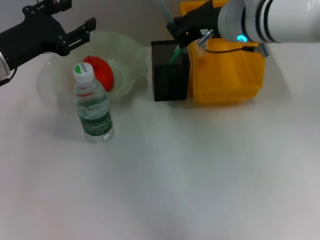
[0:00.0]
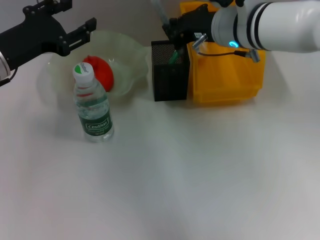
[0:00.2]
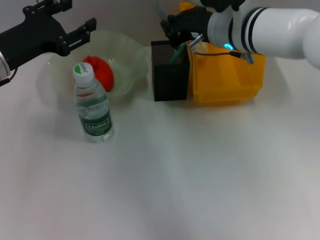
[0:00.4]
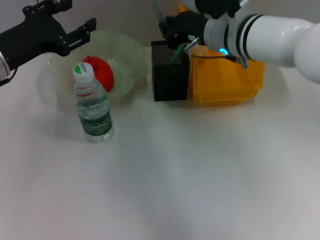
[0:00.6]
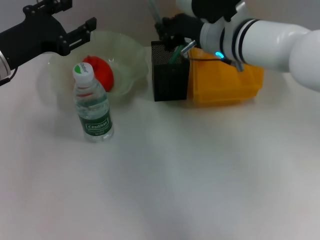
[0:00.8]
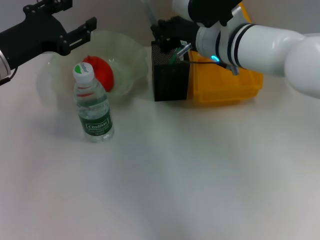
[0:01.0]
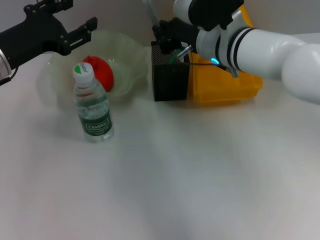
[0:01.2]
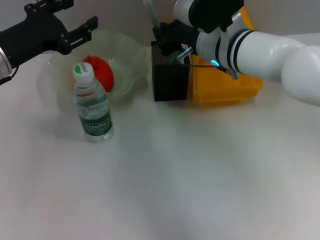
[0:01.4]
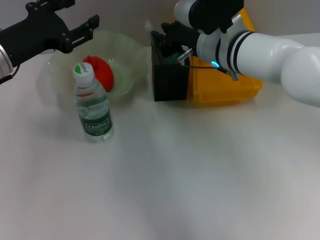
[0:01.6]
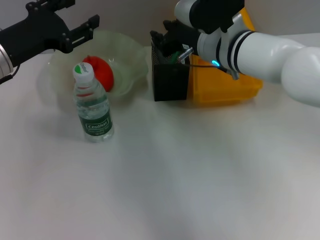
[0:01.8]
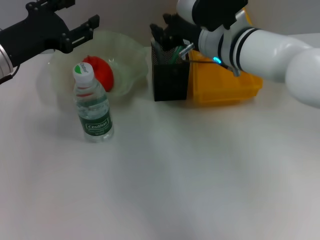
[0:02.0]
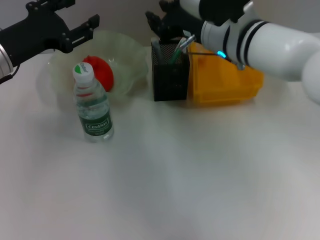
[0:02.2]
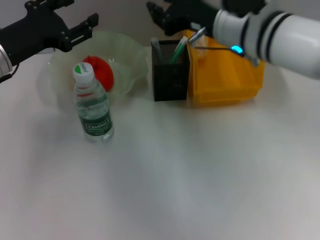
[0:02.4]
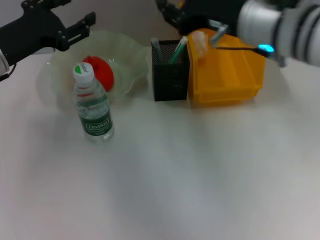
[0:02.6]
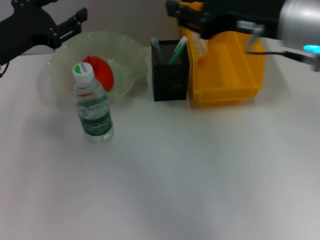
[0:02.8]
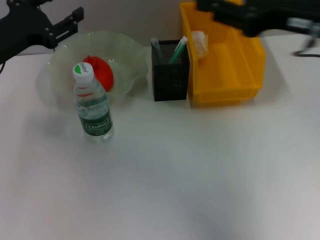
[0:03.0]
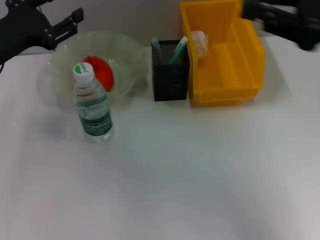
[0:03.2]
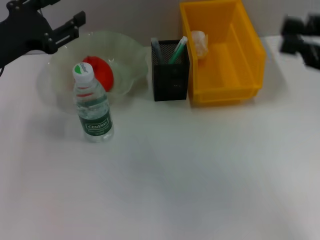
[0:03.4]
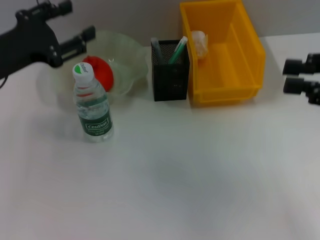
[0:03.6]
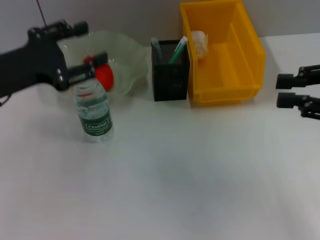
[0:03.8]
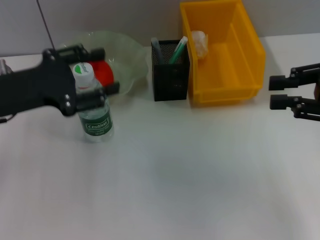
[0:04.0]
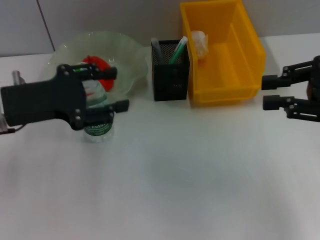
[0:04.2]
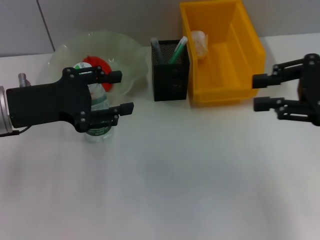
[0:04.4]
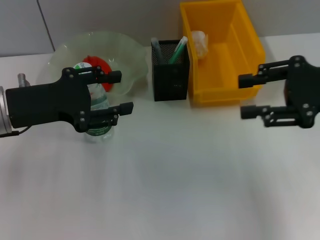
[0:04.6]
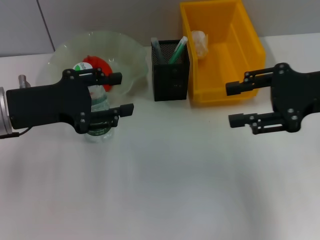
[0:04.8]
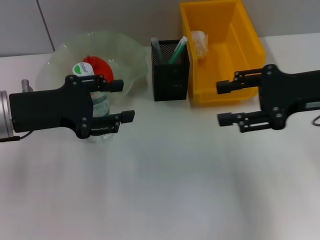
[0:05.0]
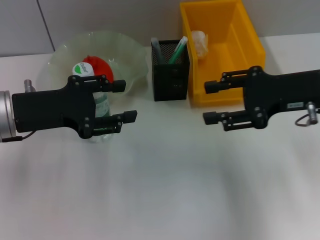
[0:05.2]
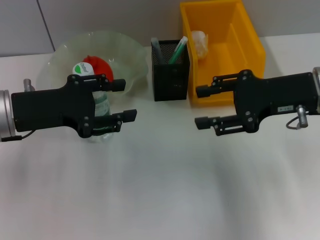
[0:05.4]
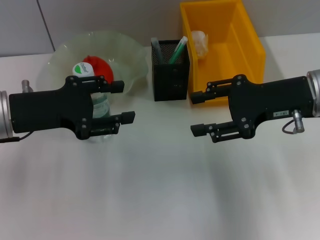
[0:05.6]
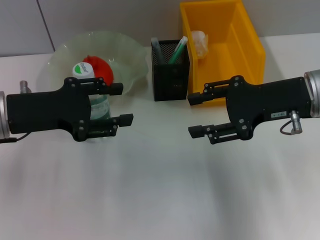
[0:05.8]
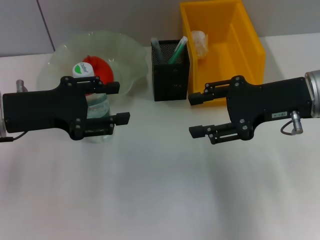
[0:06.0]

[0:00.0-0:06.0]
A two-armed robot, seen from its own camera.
Step, 0:00.0 to 0:02.4: Place the gray glue into the pen holder with the right hand.
0:00.0 to 0:01.6: The right gripper moves downward, roughly 5 cm.
0:01.6 to 0:03.0: The right gripper moves to the right, backward and upward, some 20 cm.
0:03.0 to 0:04.4: The left gripper ends up some 5 cm from where it was; the right gripper heads to the right and downward, covering some 10 cm.
0:04.4 to 0:06.0: The right gripper shifts roughly 5 cm to the left, and opens up.

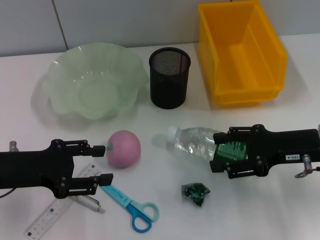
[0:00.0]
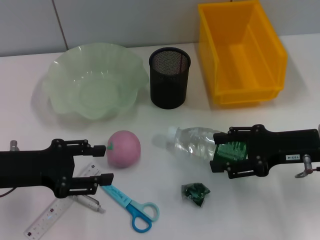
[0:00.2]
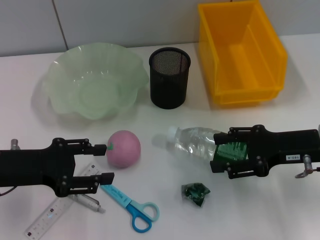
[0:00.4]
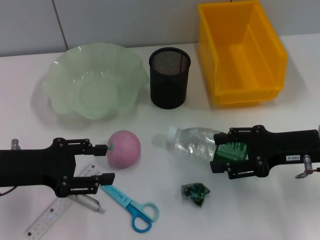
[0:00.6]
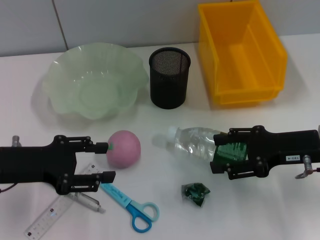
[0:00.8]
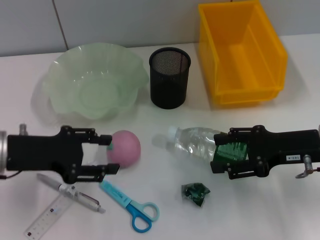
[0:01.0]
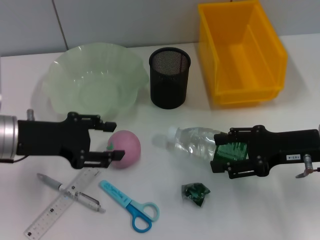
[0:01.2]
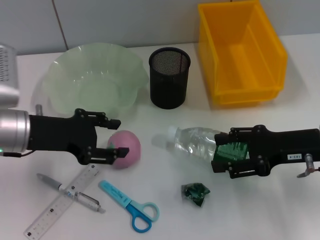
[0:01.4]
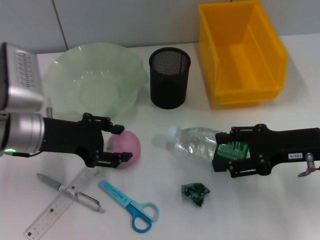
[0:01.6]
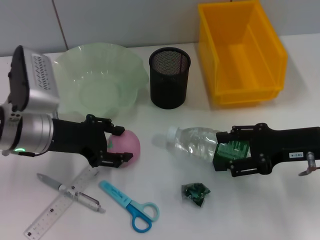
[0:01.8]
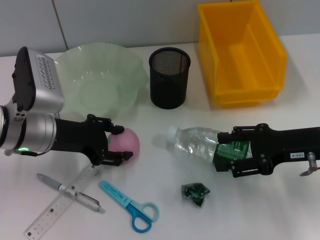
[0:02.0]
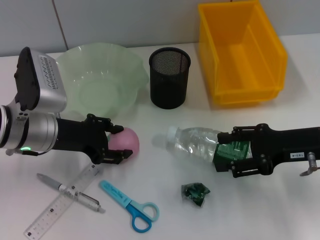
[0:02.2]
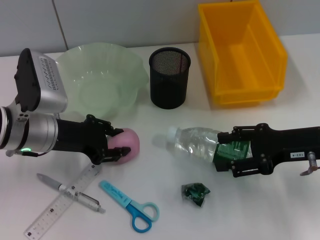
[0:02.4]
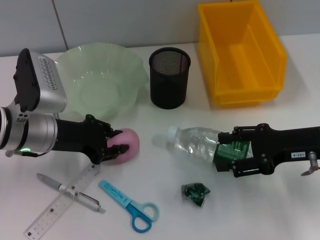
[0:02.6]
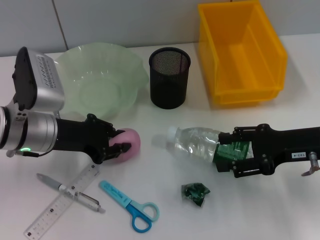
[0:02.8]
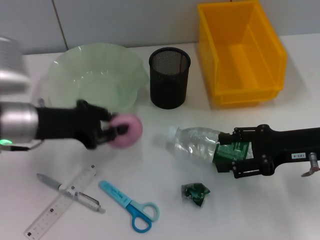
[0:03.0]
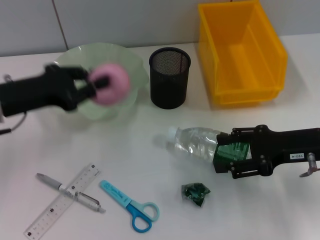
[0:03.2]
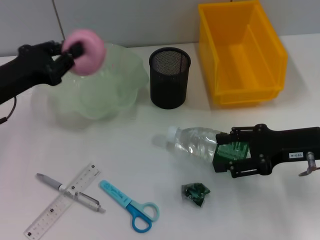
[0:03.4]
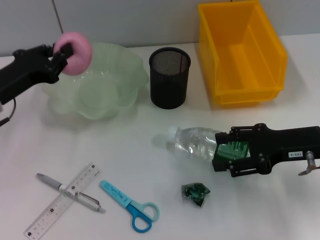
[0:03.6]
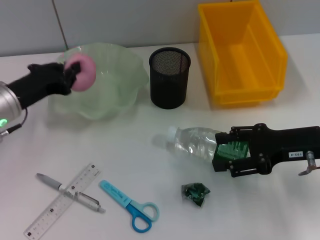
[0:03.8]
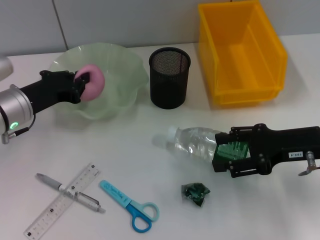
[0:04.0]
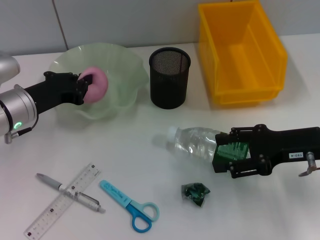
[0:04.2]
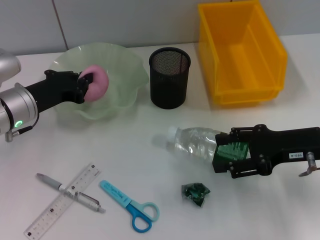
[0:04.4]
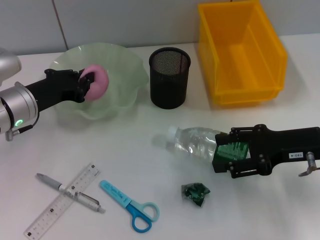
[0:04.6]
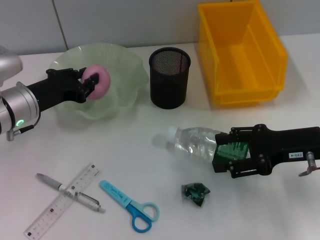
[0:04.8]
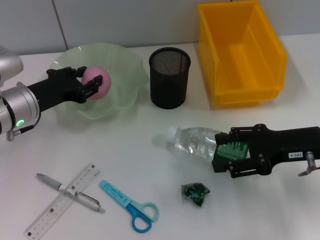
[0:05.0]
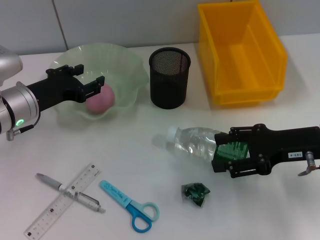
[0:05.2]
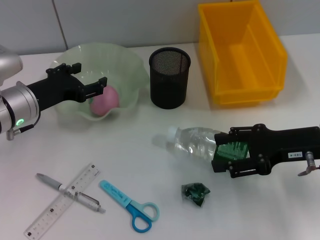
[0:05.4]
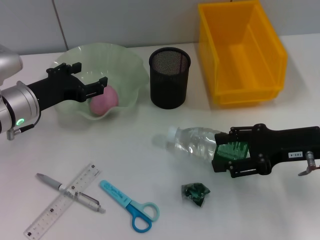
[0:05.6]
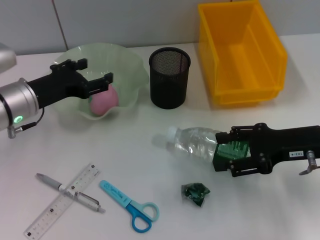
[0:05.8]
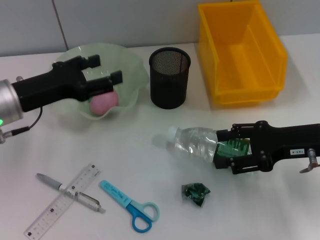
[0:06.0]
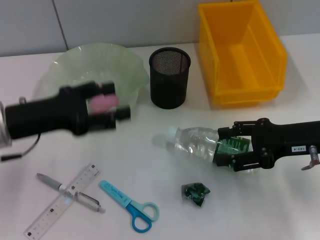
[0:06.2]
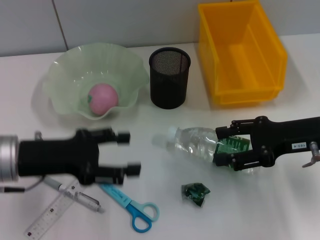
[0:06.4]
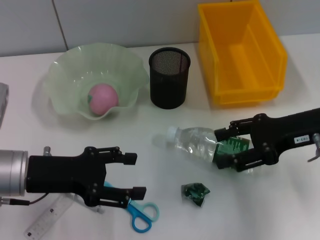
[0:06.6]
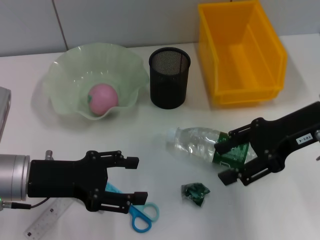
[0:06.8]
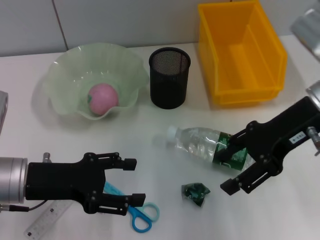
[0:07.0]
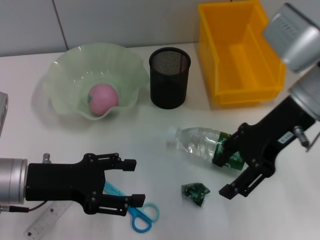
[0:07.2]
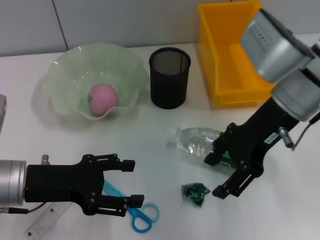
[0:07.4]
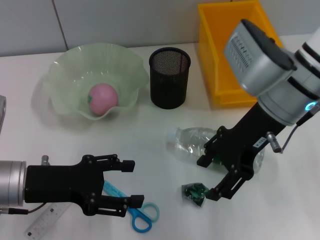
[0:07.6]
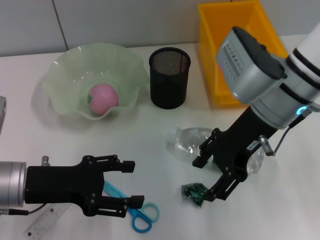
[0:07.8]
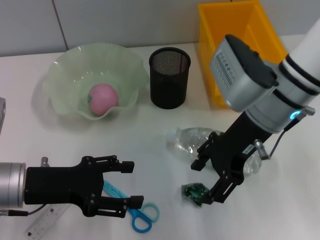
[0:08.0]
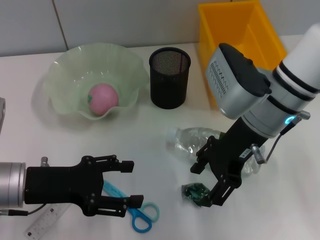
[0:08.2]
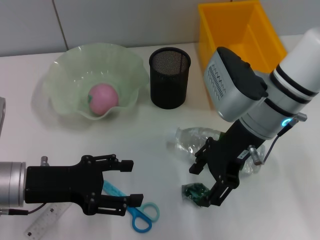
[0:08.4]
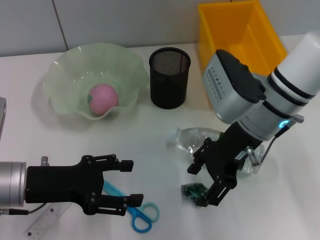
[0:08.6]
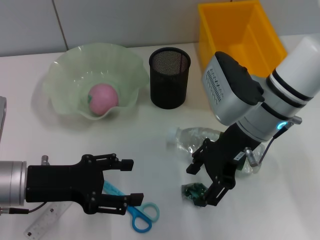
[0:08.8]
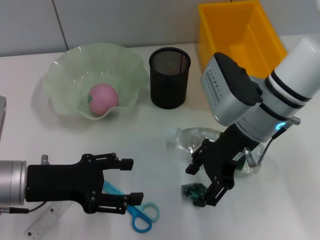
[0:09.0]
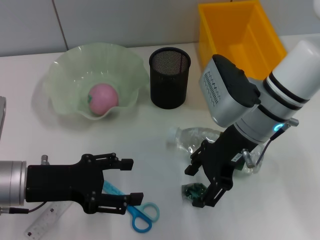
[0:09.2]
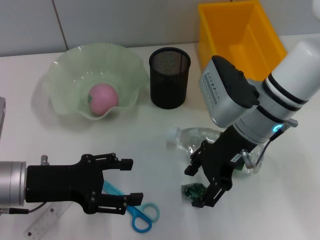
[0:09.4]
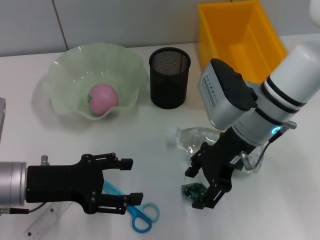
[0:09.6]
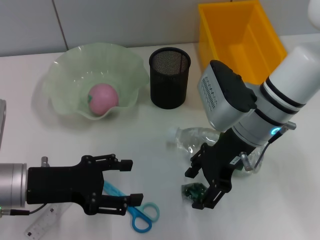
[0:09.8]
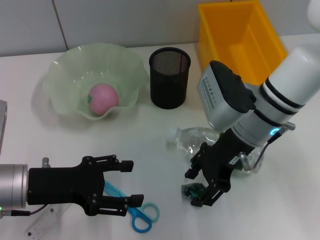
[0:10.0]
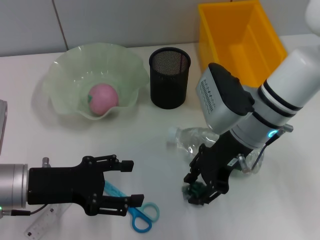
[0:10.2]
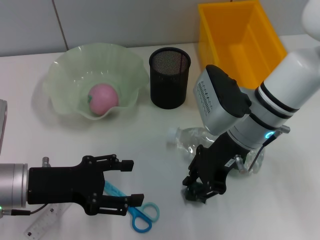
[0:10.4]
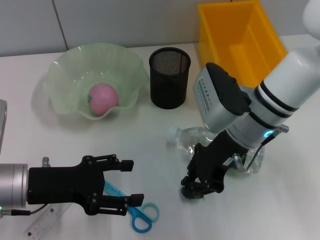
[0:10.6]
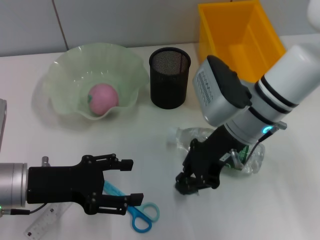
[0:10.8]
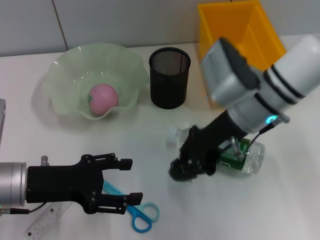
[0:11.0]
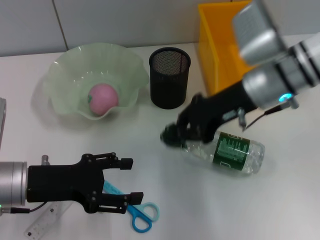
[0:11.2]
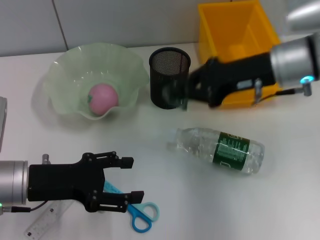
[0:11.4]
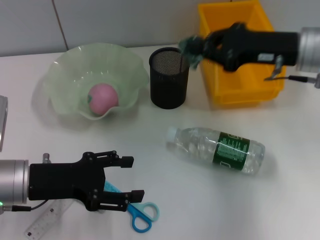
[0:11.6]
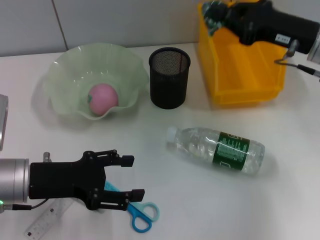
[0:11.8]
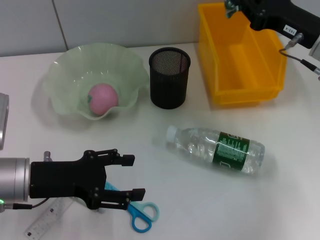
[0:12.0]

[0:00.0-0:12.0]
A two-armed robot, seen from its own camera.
Step, 0:00.0 to 0:02.6: Grab the peach with the left hand.
Step, 0:02.8 to 0:05.0: Place the peach into the fruit bowl with the left hand.
Step, 0:05.4 to 0:10.4: Grab the plastic with the right hand.
0:00.0 to 0:01.6: The left gripper shifts roughly 10 cm to the right and forward.
0:01.6 to 0:03.0: The left gripper closes.
0:03.0 to 0:04.4: The left gripper changes place by roughly 5 cm.
0:04.4 to 0:06.0: The left gripper changes place by approximately 5 cm, and opens up.
0:06.0 to 0:07.6: The right gripper moves to the left and upward, approximately 15 cm. The left gripper heads backward, covering about 5 cm.
0:07.6 to 0:09.0: The grippers move only a little.
0:09.0 to 0:10.4: The right gripper closes its fingers.
0:10.4 to 0:12.0: The right gripper shifts about 15 cm to the right, and closes.

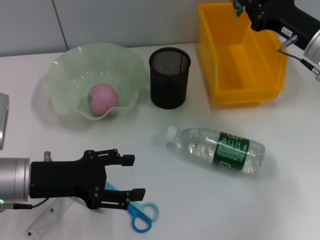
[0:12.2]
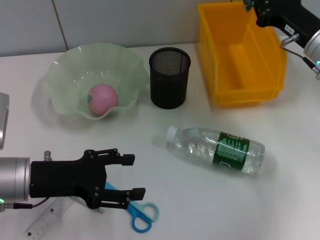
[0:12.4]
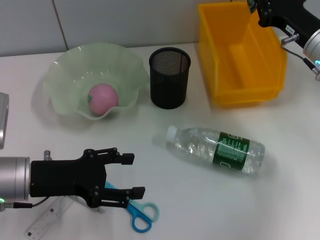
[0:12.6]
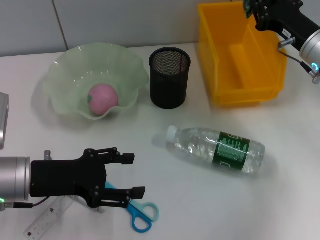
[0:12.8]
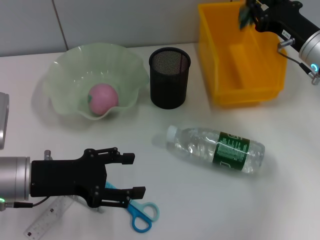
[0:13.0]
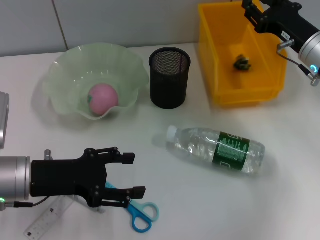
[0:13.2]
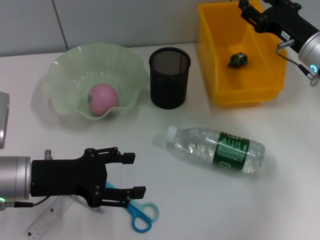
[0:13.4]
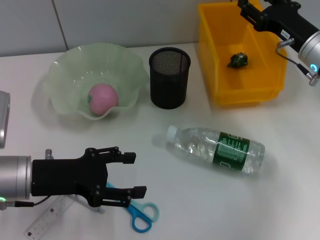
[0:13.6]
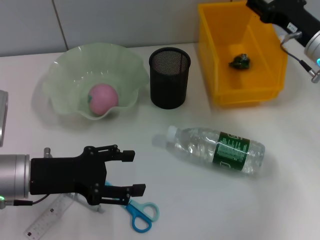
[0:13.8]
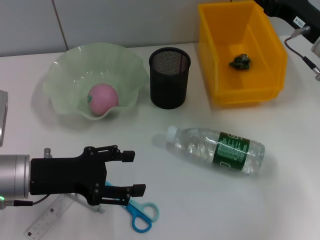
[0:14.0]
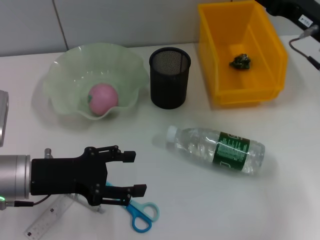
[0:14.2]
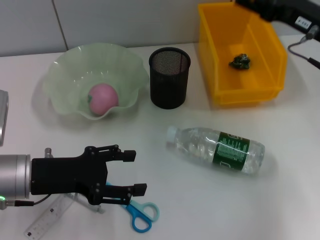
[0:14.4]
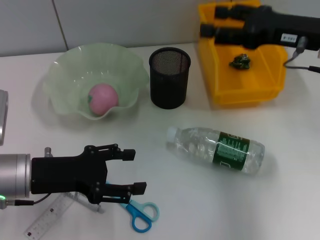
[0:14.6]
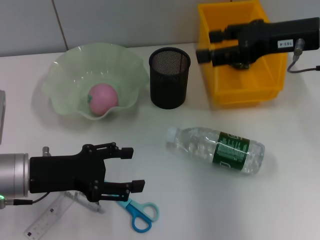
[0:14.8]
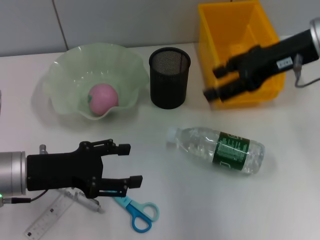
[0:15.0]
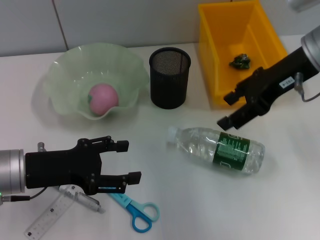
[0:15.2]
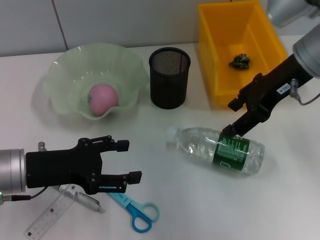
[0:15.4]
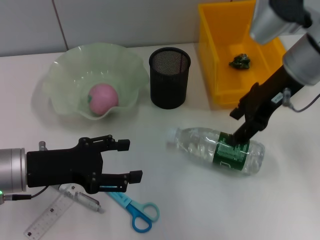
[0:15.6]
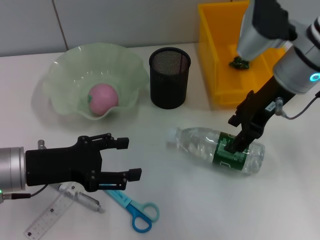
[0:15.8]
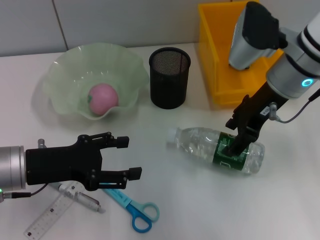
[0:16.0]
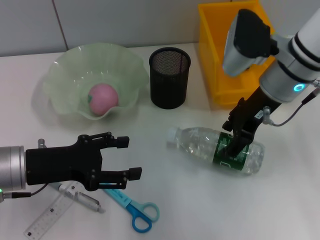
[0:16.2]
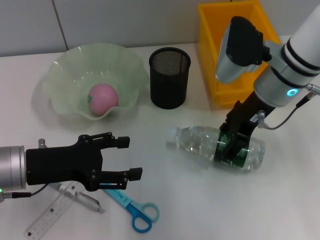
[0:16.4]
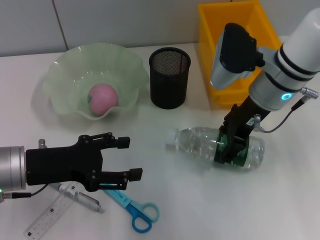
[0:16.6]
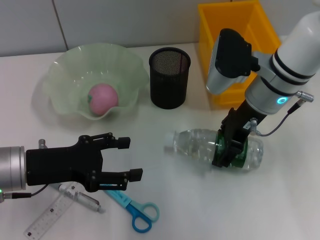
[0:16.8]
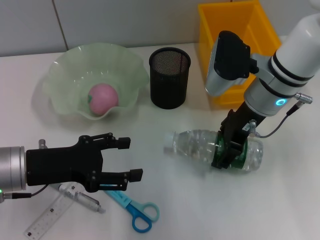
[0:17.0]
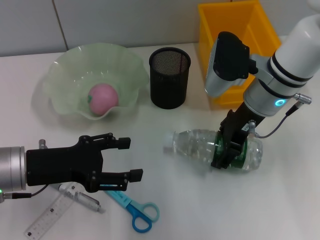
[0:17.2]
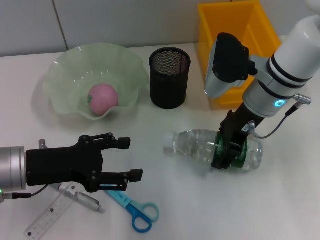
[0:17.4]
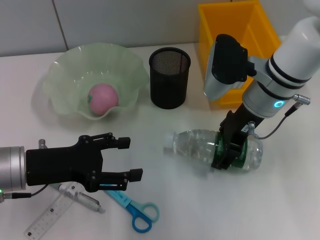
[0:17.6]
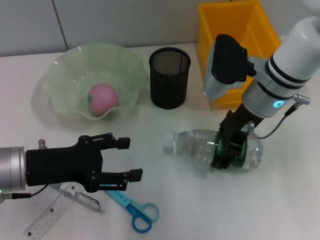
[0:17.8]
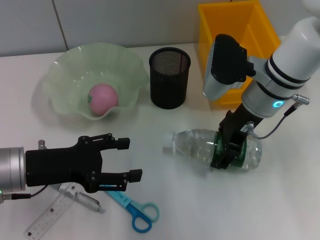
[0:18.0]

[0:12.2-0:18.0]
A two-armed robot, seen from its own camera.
Step, 0:13.6 to 0:16.8: Grab the water bottle with the right hand.
0:12.2 to 0:13.6: The right gripper opens its fingers.
0:13.6 to 0:15.0: The right gripper shifts some 10 cm upward.
0:15.0 to 0:16.6: The right gripper moves downward and to the left, about 10 cm.
0:16.6 to 0:18.0: The two grippers keep their place.
